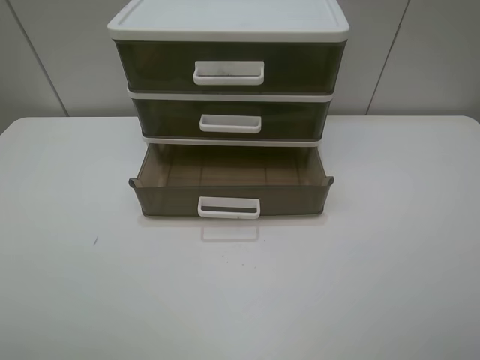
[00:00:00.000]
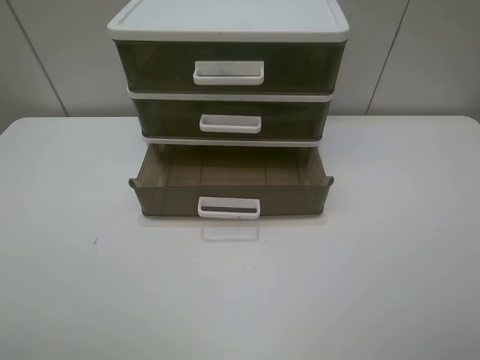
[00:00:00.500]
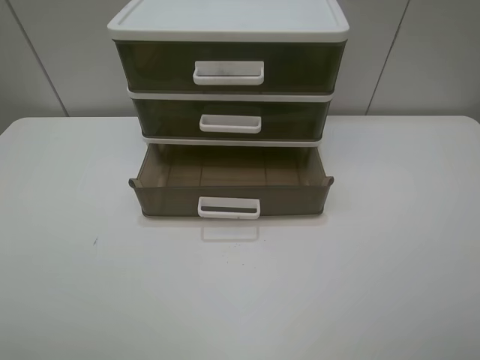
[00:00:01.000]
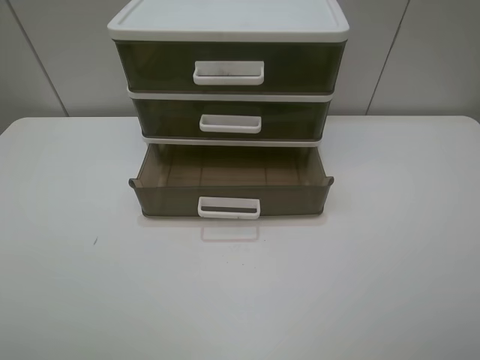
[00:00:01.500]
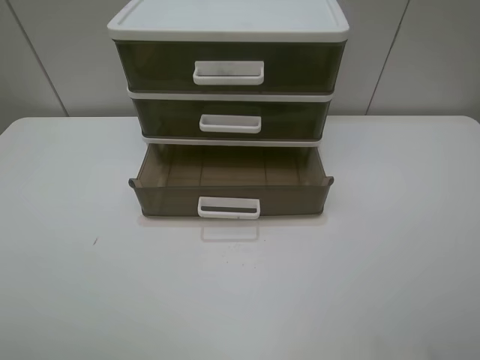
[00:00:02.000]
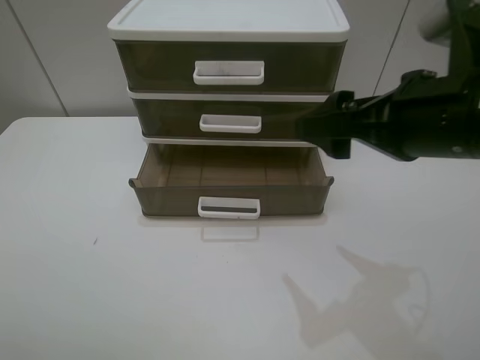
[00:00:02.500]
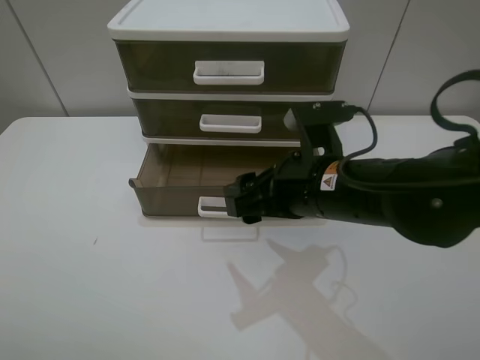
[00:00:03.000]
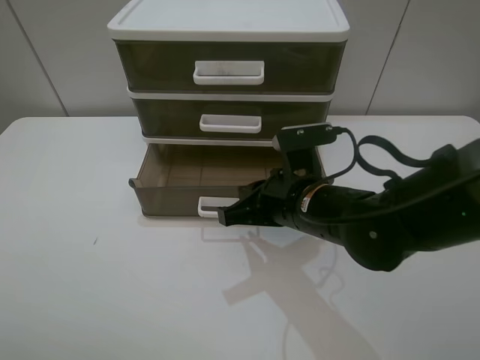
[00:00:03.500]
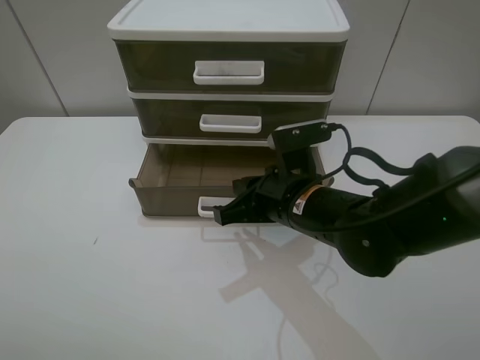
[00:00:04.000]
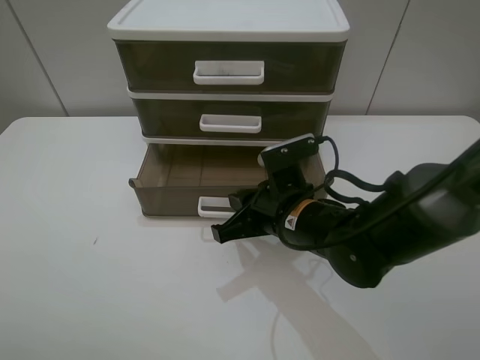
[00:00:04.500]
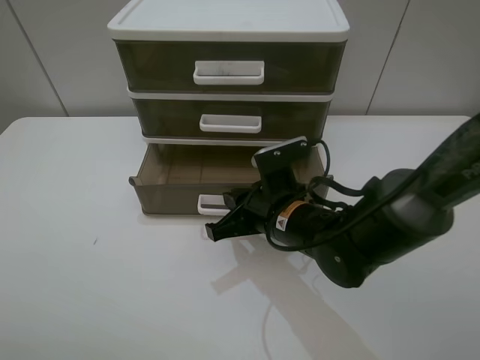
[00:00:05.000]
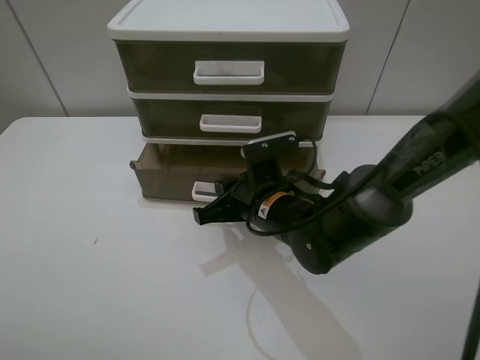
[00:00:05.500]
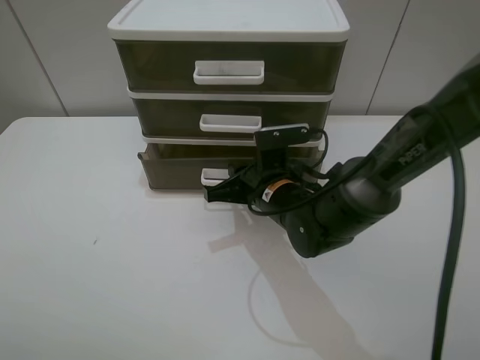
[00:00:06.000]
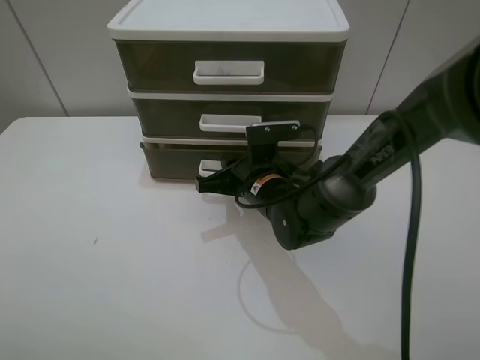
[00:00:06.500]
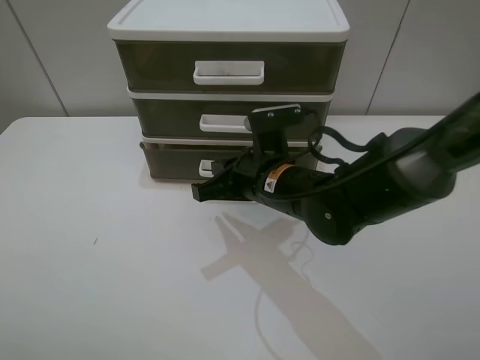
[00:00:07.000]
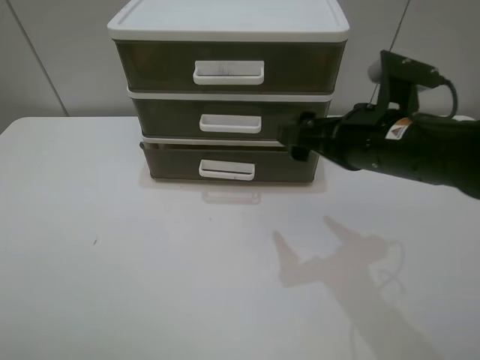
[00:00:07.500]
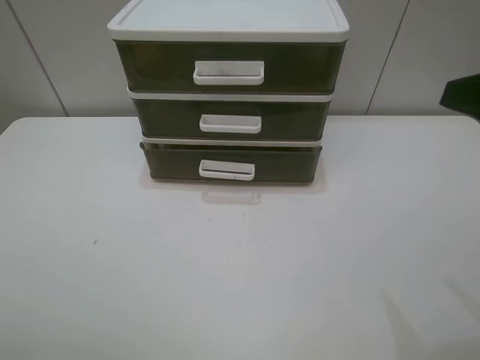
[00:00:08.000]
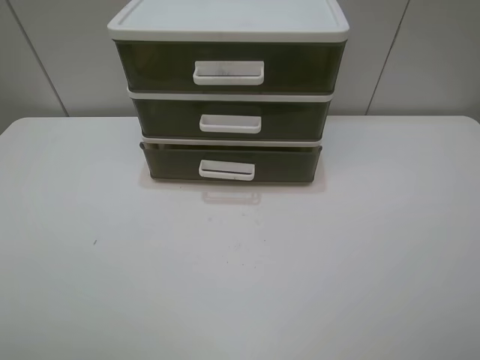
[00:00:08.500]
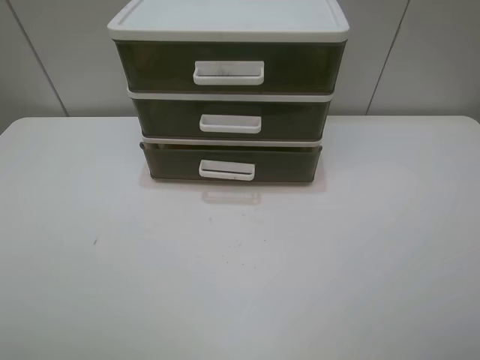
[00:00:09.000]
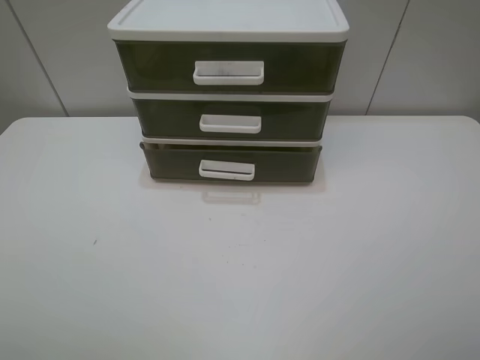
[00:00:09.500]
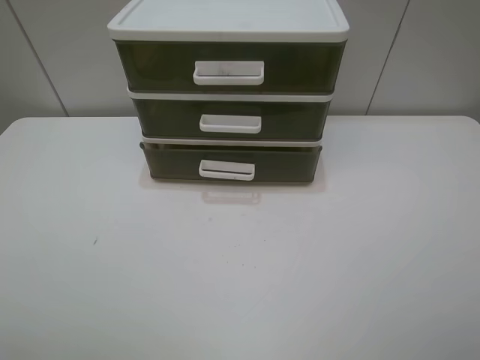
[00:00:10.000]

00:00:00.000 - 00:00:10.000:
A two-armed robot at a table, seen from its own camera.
Task of the whole recording: close the bottom drawer.
Step, 00:00:00.000 - 00:00:03.500: Use the right gripper to contact the bottom layer of the storage cabinet.
Step, 00:00:04.000 - 00:00:06.500: Push the bottom drawer closed.
00:00:02.000 - 00:00:04.000: The right gripper heads to the left, downward and forward, covering approximately 30 cm, and closes up.
00:00:04.000 - 00:00:06.000: The right gripper travels forward by about 5 cm.
00:00:06.000 - 00:00:08.000: The right gripper is displaced upward, to the right and backward by roughly 35 cm, and opens.
00:00:08.000 - 00:00:10.000: The right gripper moves backward, about 10 cm.
